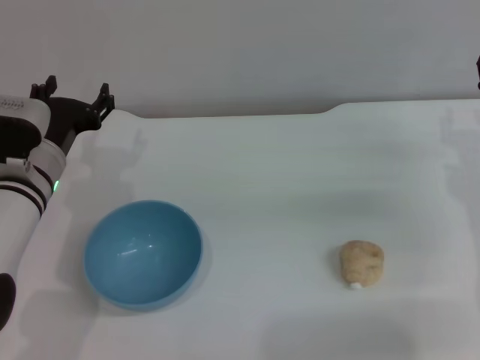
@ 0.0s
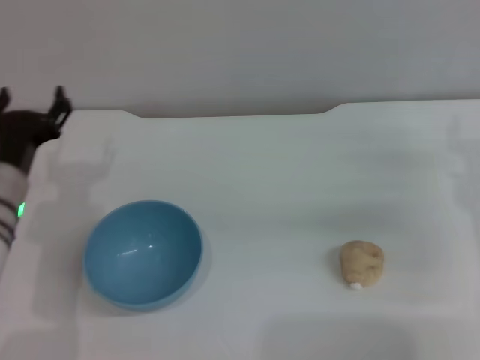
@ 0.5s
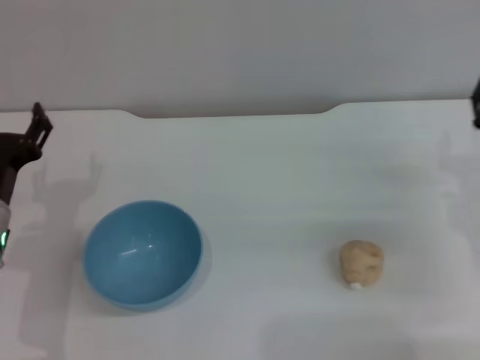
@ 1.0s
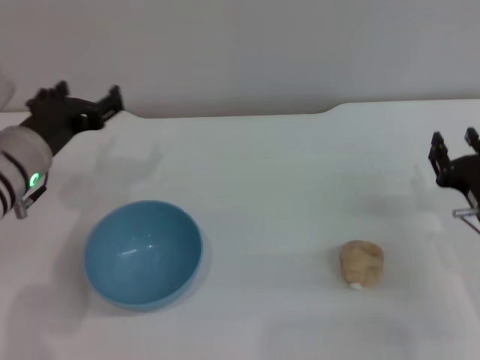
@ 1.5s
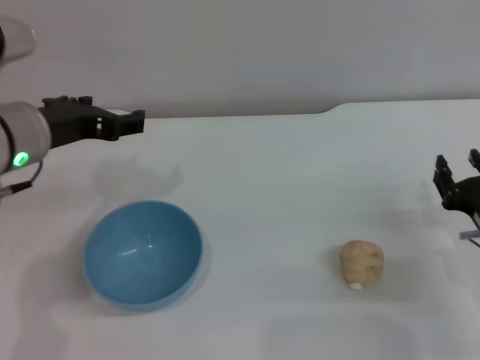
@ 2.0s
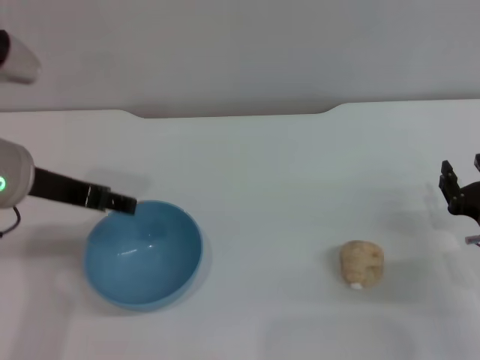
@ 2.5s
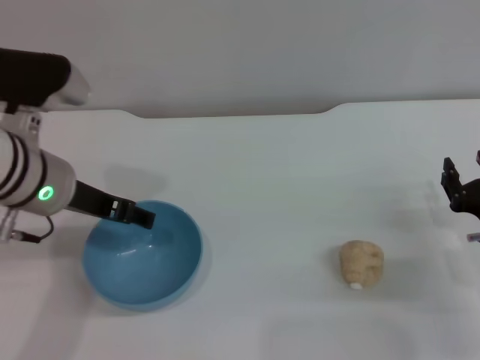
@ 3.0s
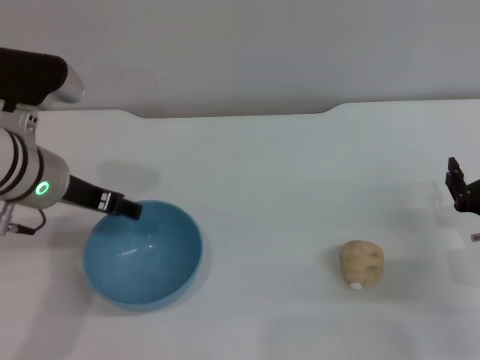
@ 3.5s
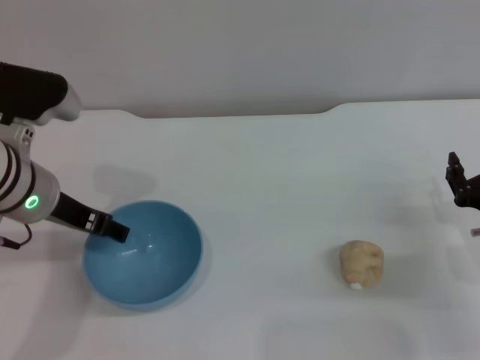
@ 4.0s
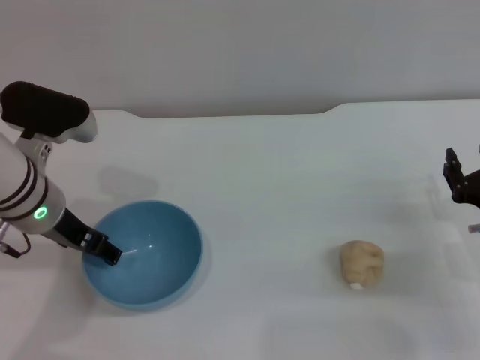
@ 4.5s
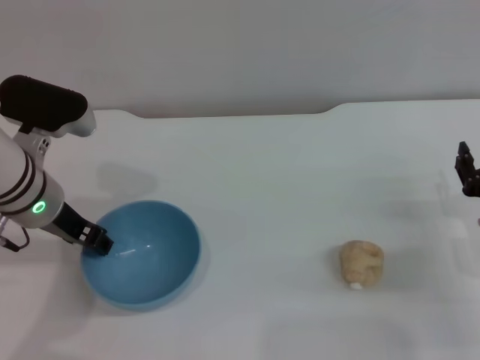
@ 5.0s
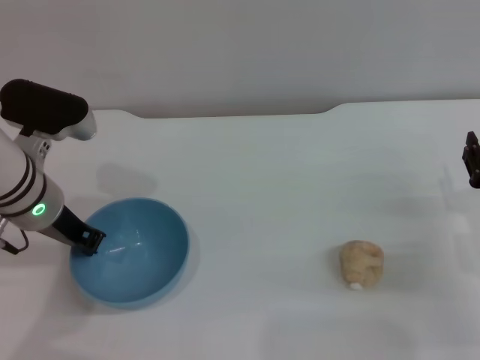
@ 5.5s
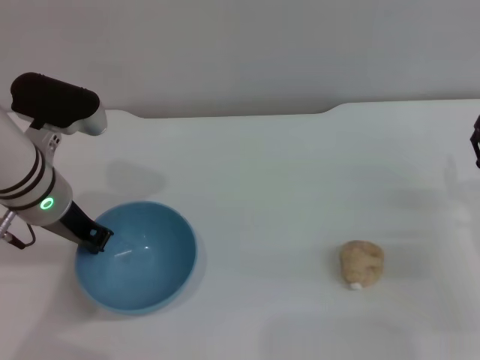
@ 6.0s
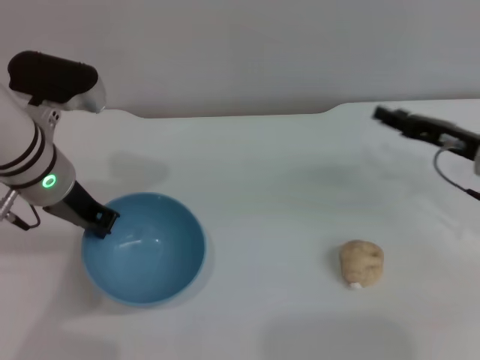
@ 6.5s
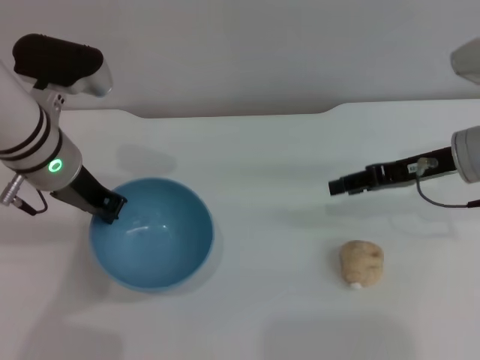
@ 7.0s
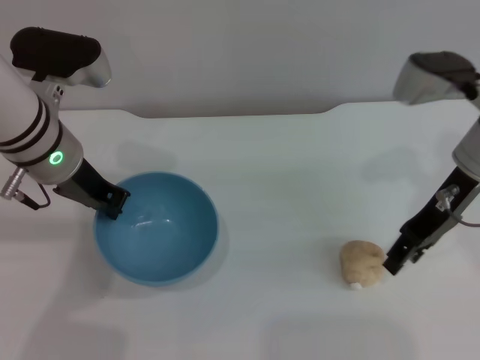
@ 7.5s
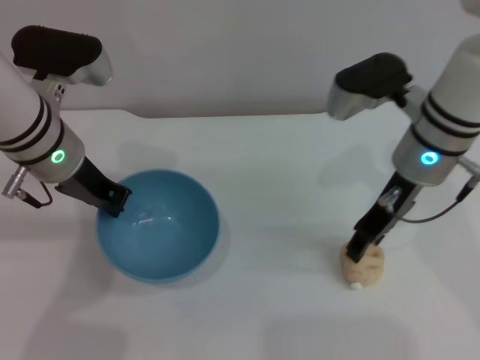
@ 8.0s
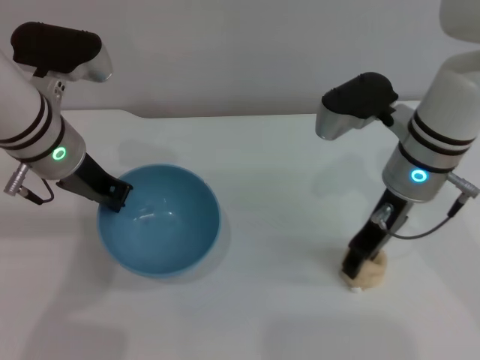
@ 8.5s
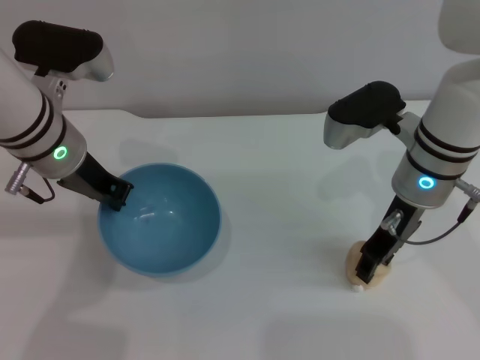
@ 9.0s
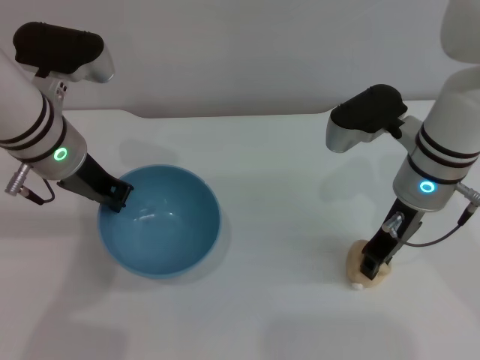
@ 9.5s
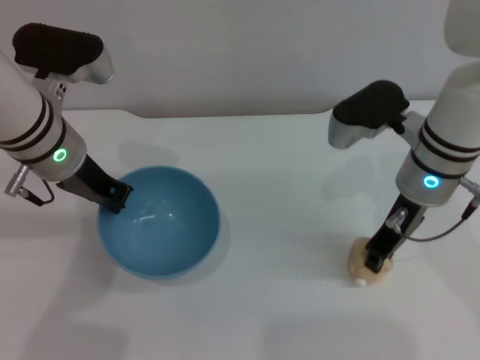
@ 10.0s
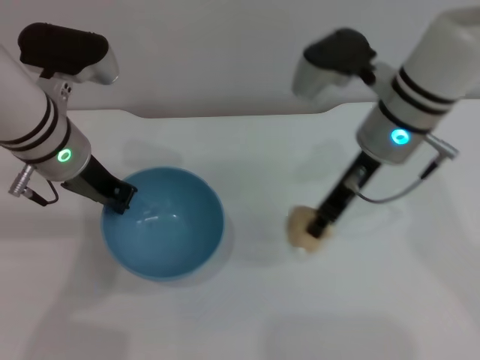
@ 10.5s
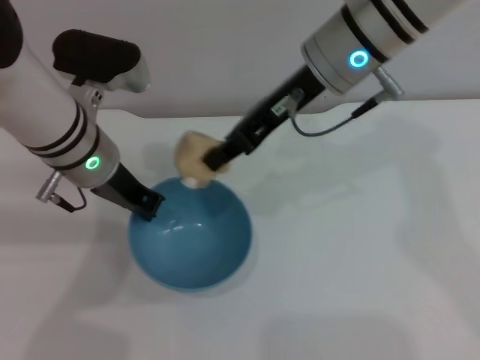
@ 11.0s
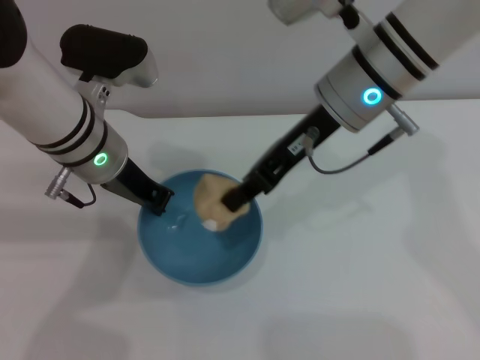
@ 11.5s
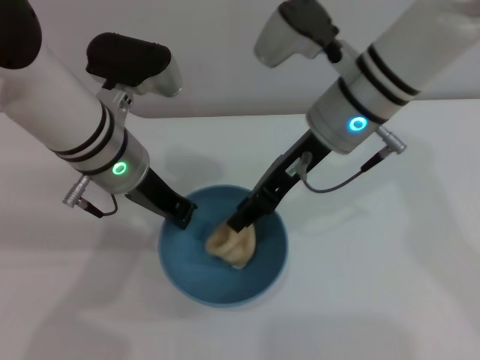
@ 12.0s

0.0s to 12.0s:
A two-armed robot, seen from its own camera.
Task of the whole recording: put the egg yolk pastry into the blue bowl and pour it out repeatedly.
Step, 0.0s to 7.0s: Pick up the bowl with the left gripper.
Step, 7.5s to 10.5s: Pick up the egg yolk pastry with the right gripper.
0.0s to 2.0s: The left gripper heads upward, covering some 10 cm. The right gripper shifts about 10 cm backward and downward.
4.0s to 6.0s: The left gripper closes its fingers.
6.0s to 8.0s: The right gripper goes approximately 20 cm to the left, upward and forward.
8.0s to 10.0s: The right gripper closes its fingers.
10.0s to 12.0s: The right gripper travels to the left and upward by roughly 10 cm, while the left gripper travels to the right by some 5 cm.

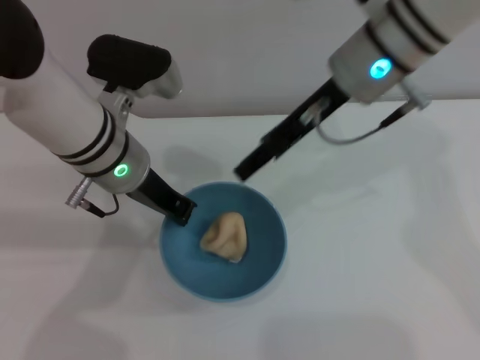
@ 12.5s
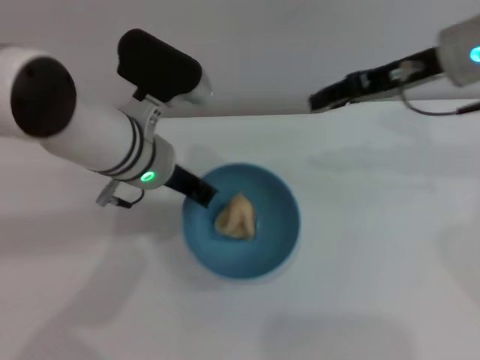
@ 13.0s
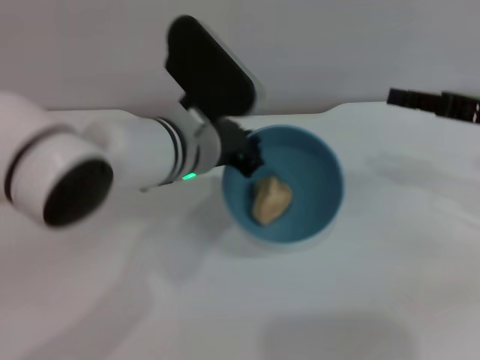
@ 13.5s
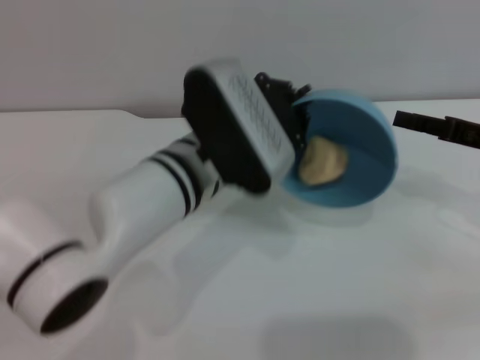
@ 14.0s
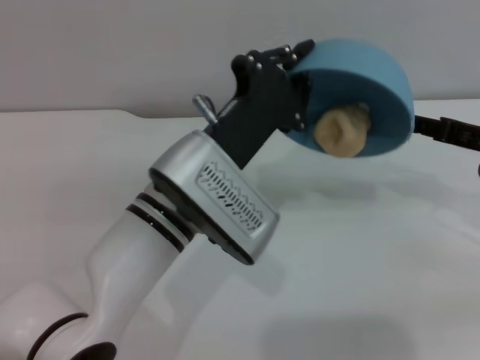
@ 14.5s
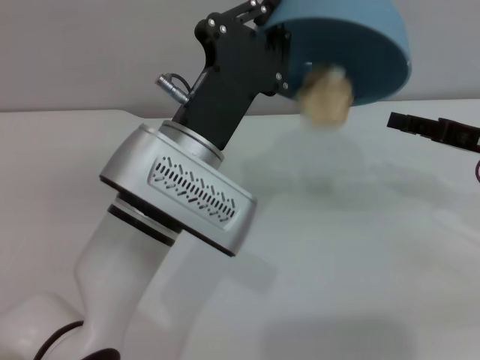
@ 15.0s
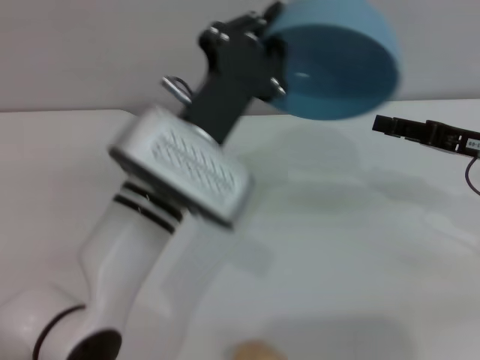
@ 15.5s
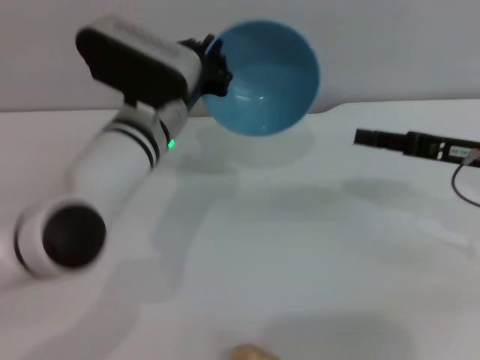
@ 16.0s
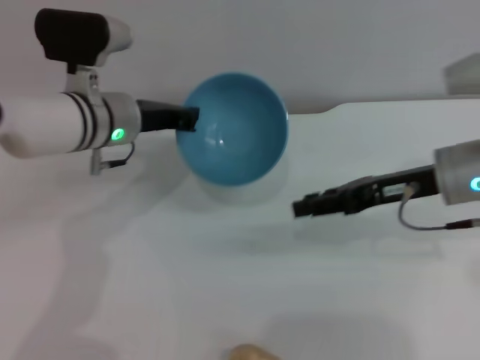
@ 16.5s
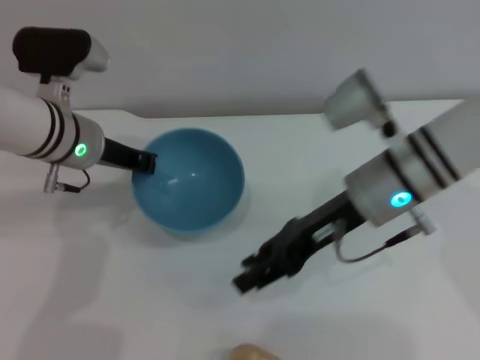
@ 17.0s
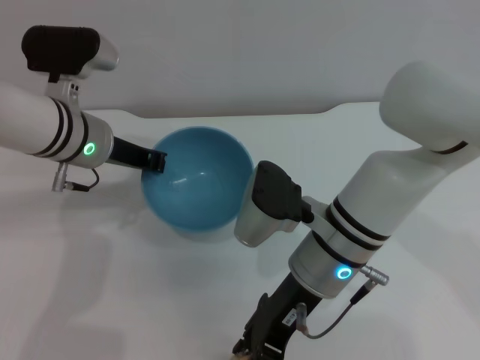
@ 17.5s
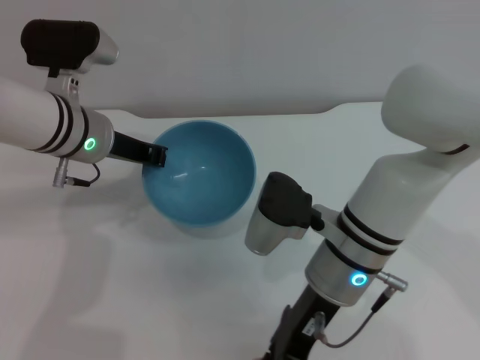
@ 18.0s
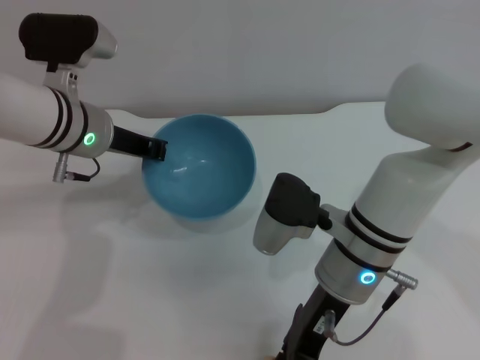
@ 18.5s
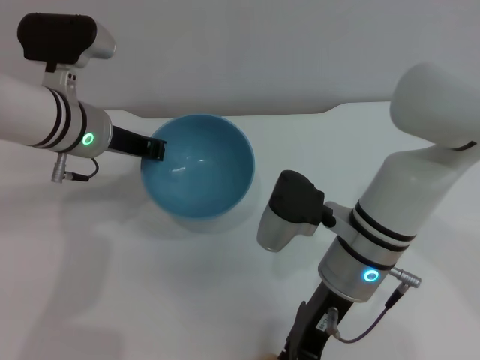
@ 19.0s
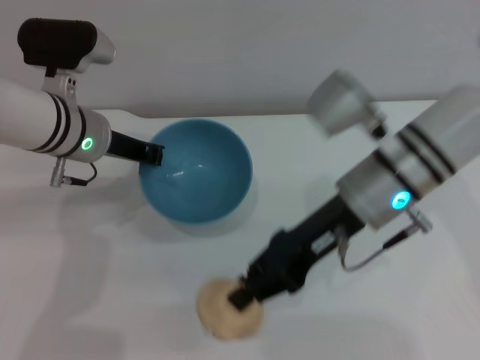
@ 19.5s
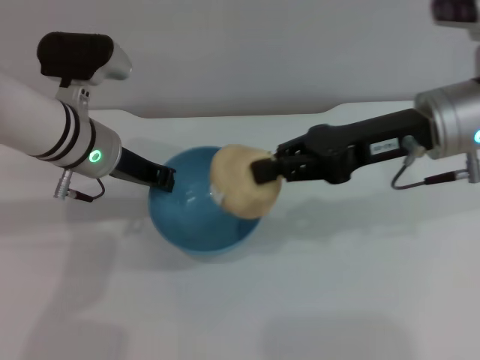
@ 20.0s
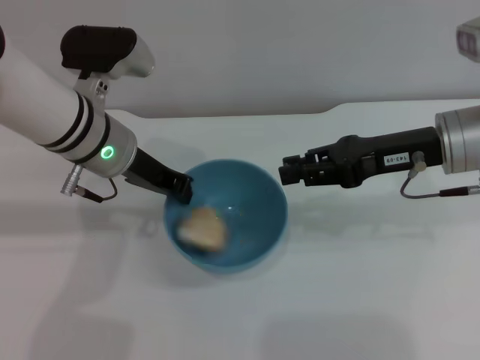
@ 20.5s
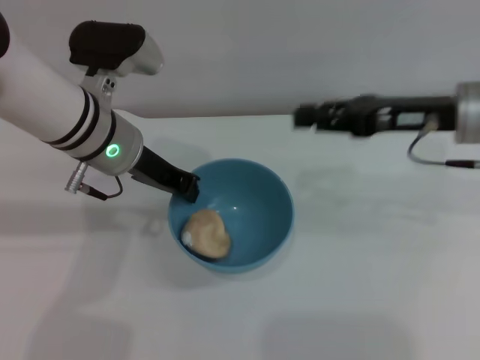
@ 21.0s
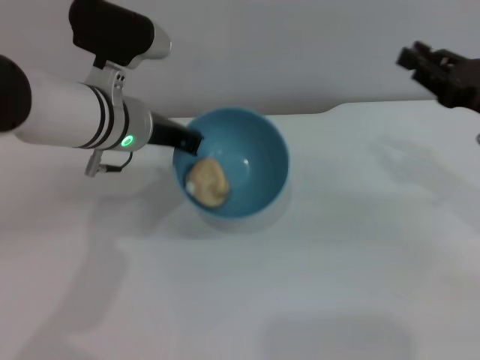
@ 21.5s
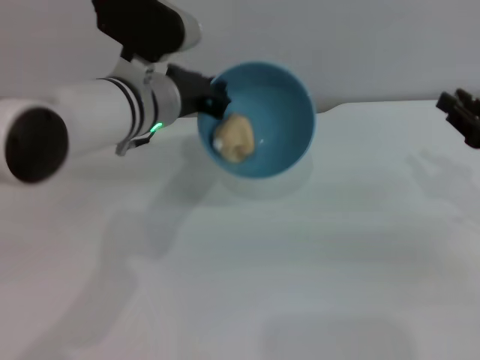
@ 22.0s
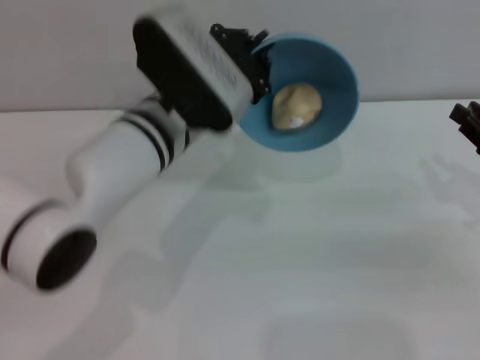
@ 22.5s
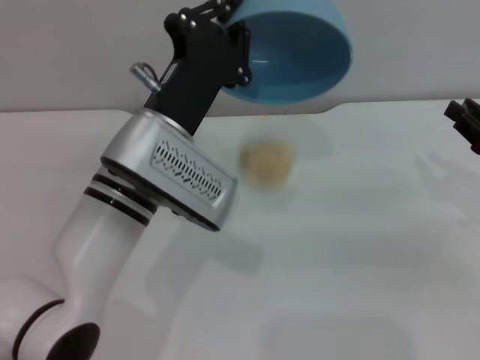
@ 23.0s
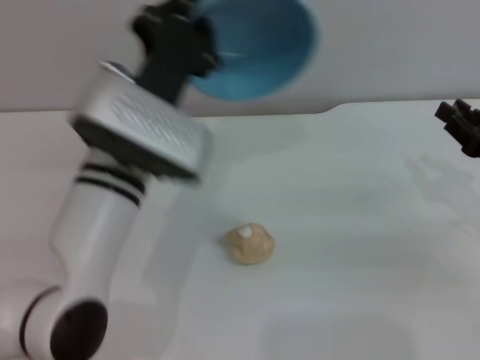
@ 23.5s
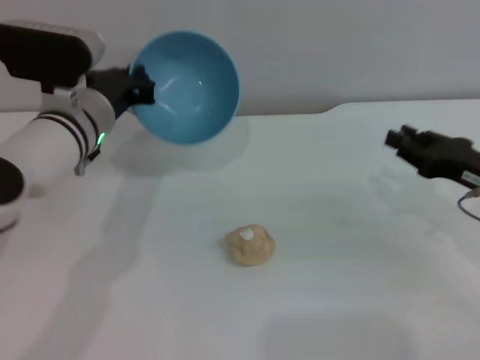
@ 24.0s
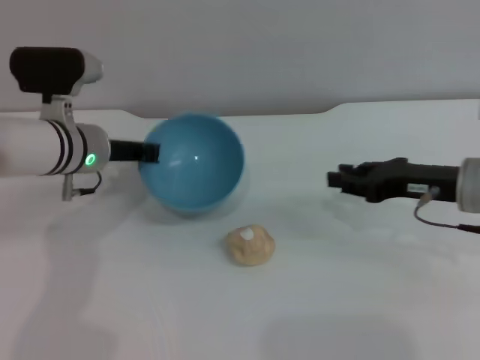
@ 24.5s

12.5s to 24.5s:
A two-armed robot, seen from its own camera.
Task of the whole recording: put the egg yolk pastry into the blue bowl and pour it out repeatedly.
Step, 13.0s to 15.0s: Pour the egg yolk pastry out of bowl.
Step, 15.5s to 19.5s: Pick up the egg yolk pastry with the right gripper.
Step, 20.0s to 20.5s: Place the egg yolk pastry into the bowl.
Step, 21.0s to 23.0s: Pour the egg yolk pastry out of bowl.
12.5s to 14.5s: The right gripper heads to the right and downward, covering roughly 25 cm; the left gripper moves backward and to the right, about 10 cm.
14.5s to 16.5s: The left gripper is displaced forward and to the left by approximately 15 cm, while the right gripper moves to the left, some 10 cm.
16.5s to 18.5s: The right gripper is displaced to the left by approximately 15 cm.
18.5s to 20.5s: The right gripper heads to the right, upward and forward, covering some 15 cm, and closes up.
20.5s to 22.5s: The right gripper is displaced to the right, downward and backward by some 15 cm. Meanwhile the left gripper heads to the right, covering some 5 cm.
22.5s to 24.5s: The right gripper shifts about 10 cm to the left, while the left gripper heads to the left, downward and forward, covering about 15 cm.

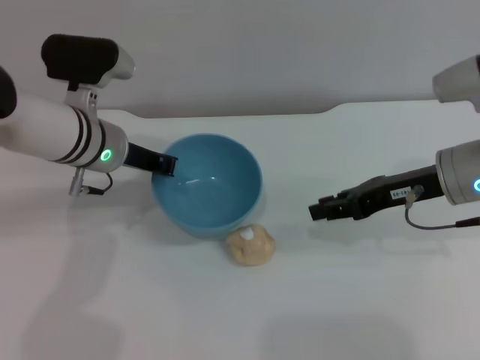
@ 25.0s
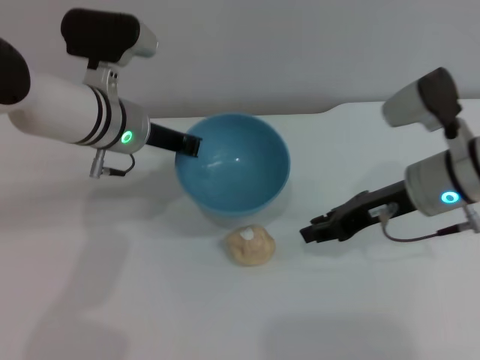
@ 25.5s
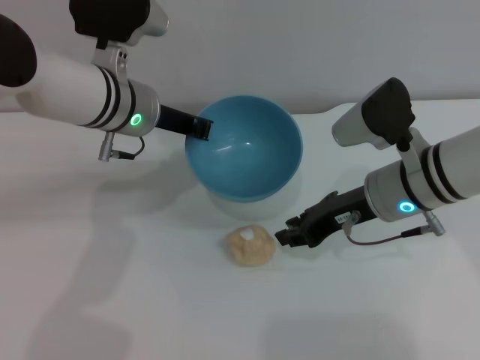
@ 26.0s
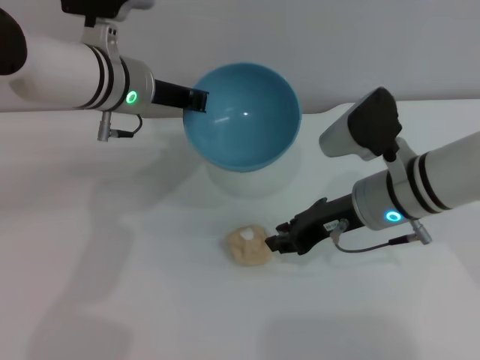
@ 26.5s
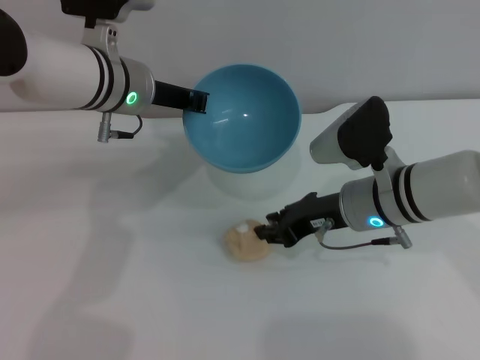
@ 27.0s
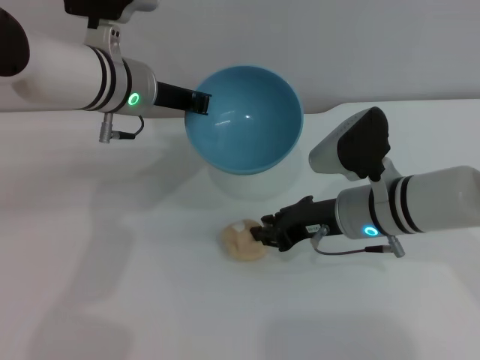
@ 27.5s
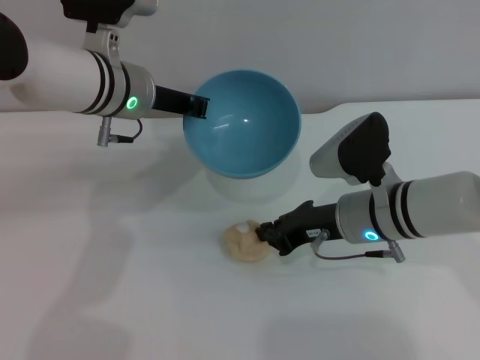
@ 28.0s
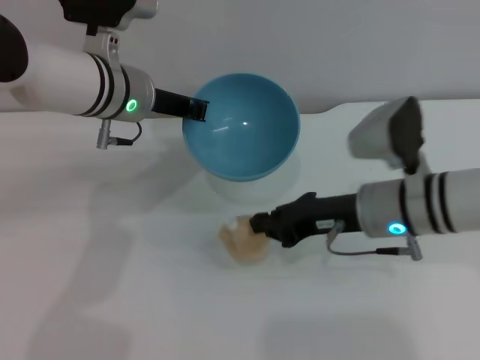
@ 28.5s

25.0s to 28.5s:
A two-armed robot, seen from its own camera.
Task of the whole recording: put the egg yolk pastry into the blue bowl and pour it out repeatedly.
25.0s to 27.0s: The right gripper shifts some 10 cm to the left and downward; the left gripper is displaced upward by approximately 5 cm.
27.0s to 28.5s: The right gripper closes its fingers.
